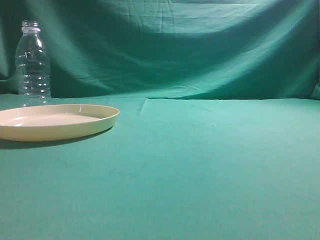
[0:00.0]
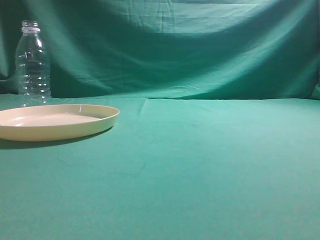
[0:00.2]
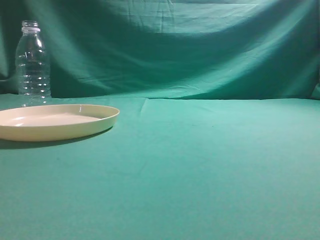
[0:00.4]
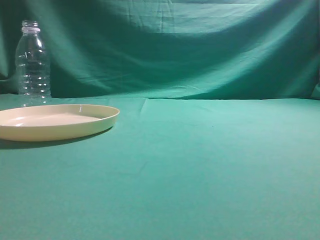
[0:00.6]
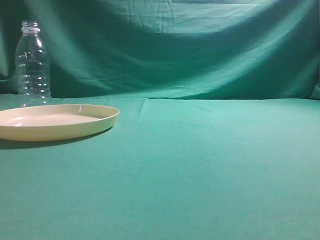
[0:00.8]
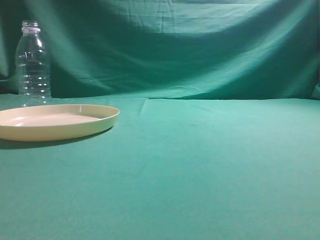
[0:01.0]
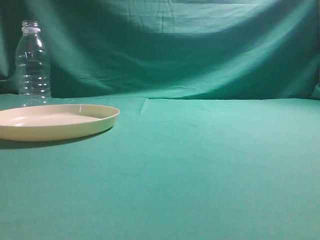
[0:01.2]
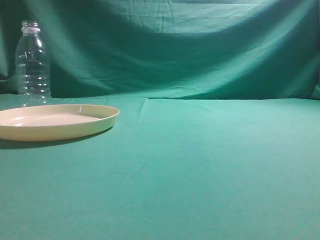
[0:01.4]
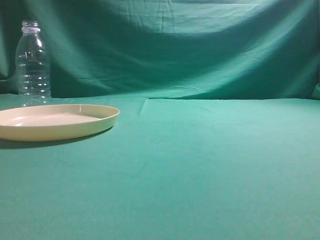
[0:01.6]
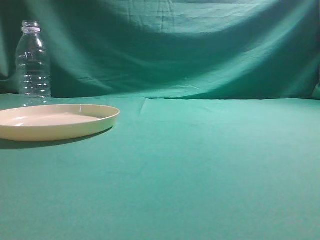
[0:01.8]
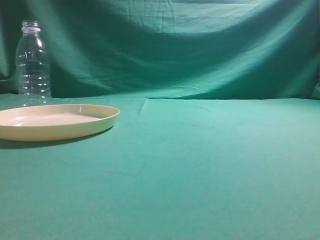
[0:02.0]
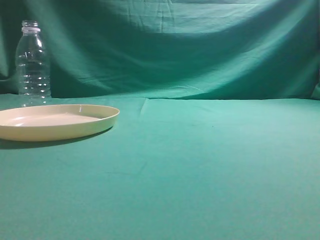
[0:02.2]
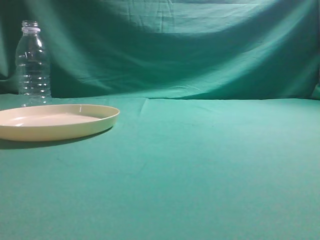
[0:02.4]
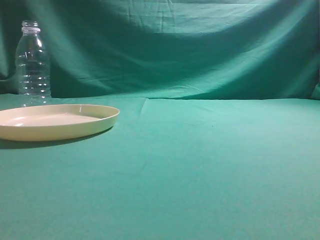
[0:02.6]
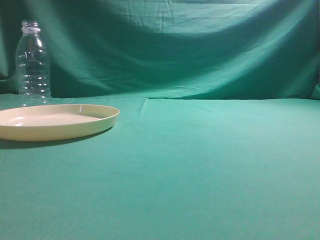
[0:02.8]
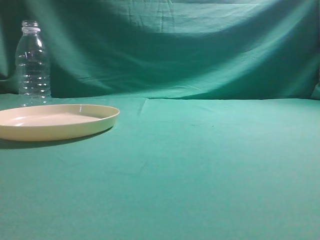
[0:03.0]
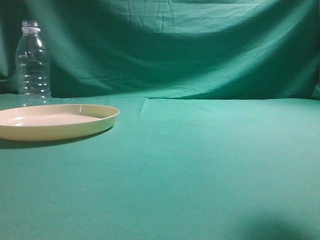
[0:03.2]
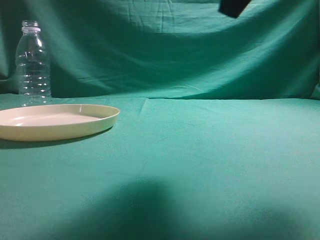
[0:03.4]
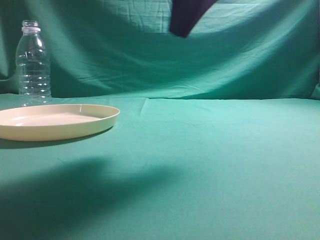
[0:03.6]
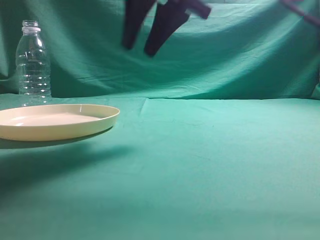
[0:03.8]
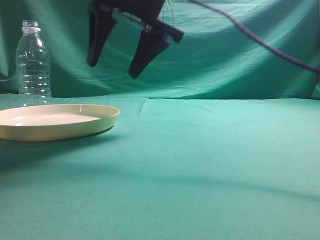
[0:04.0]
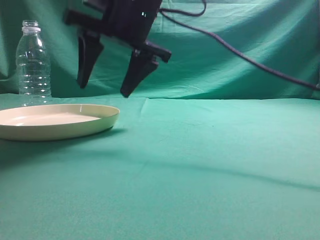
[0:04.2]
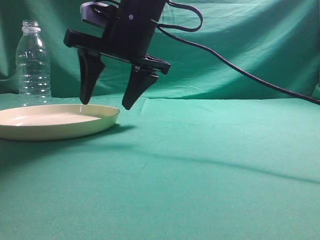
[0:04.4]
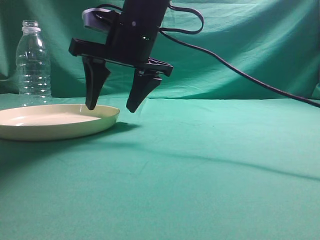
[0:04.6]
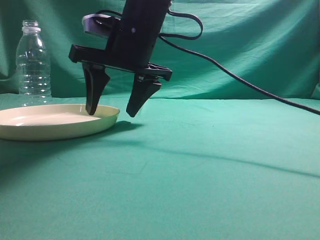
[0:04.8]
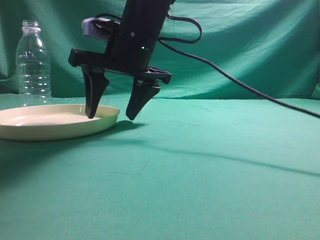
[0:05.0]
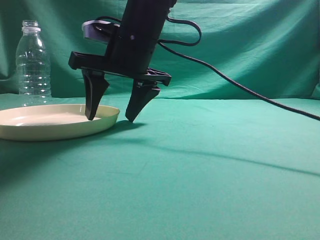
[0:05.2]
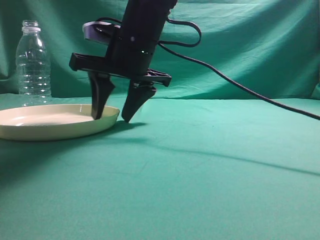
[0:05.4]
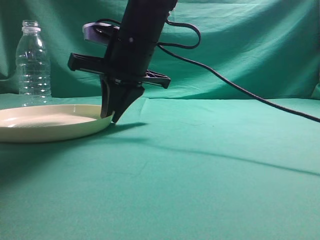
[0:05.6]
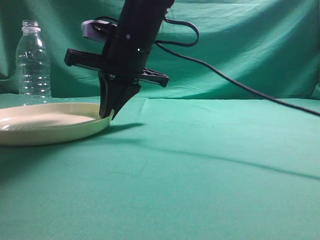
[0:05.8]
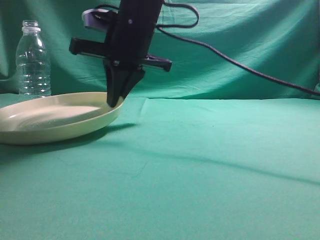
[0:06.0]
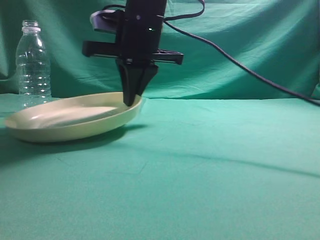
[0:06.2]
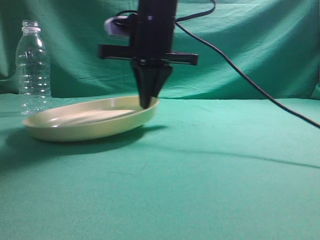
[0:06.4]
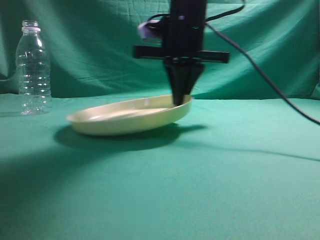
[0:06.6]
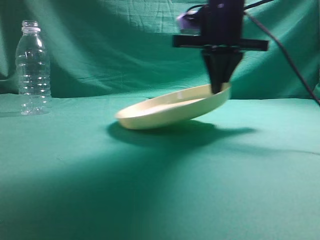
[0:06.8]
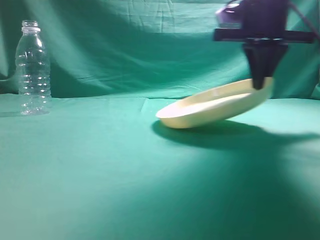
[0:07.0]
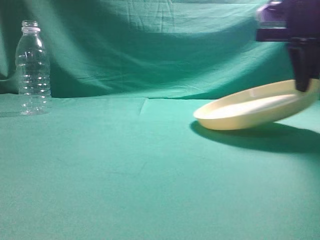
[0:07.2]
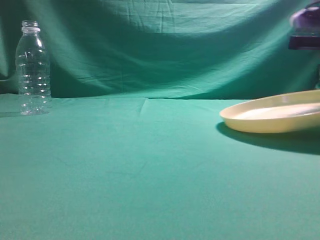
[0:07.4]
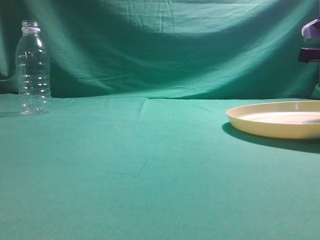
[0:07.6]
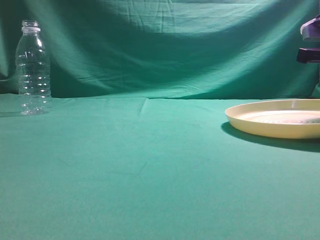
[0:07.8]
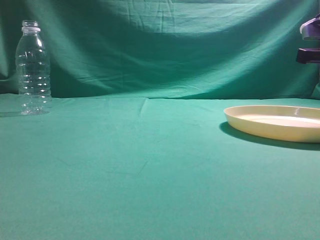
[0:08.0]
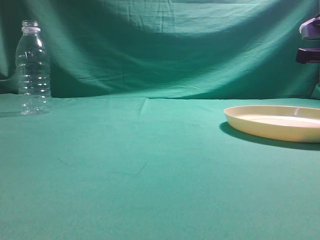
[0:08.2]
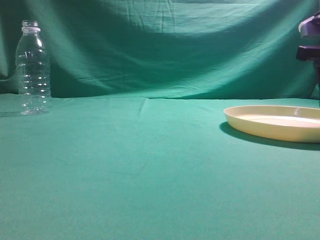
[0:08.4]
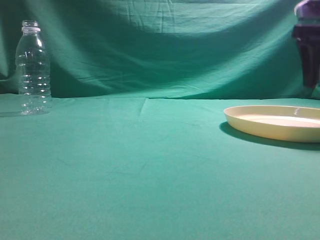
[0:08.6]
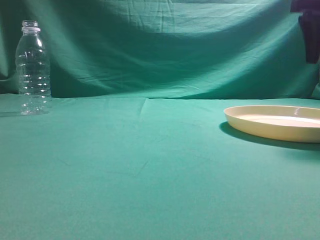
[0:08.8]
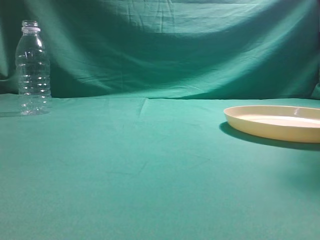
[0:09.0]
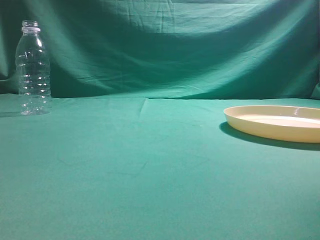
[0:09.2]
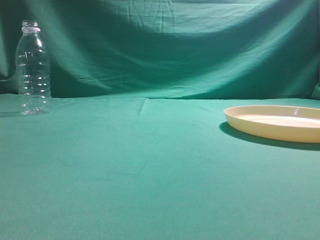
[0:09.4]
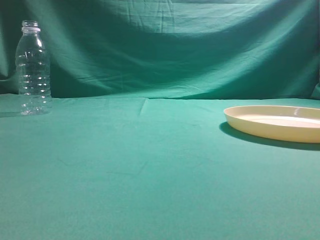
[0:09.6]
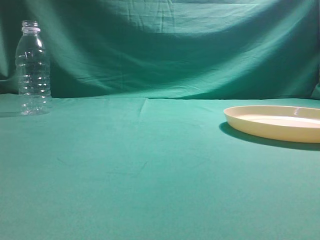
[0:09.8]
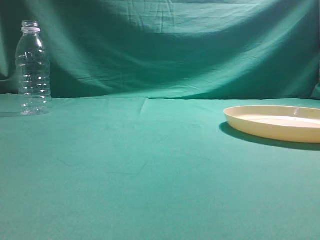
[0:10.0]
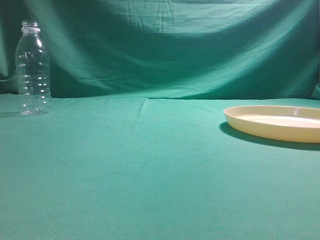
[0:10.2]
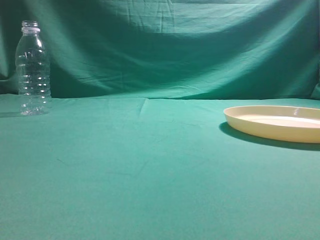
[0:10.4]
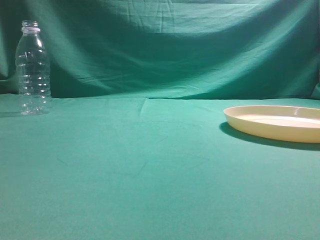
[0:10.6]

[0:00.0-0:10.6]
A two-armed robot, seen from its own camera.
Step, 0:00.0 to 0:06.0: Pick the container that can hold fruits.
Step, 0:06.2 to 0:09.6: Move the picked object to the right side of the table.
0:03.0 to 0:04.6: The right gripper goes approximately 40 cm to the left, forward and downward, and opens.
0:04.6 to 0:06.0: The right gripper closes its fingers.
0:06.0 to 0:07.6: The right gripper shifts about 30 cm to the right.
0:07.6 to 0:09.0: The right gripper goes roughly 10 cm upward, and opens up.
0:09.0 to 0:10.6: The right gripper heads backward, covering approximately 30 cm, and closes up.
